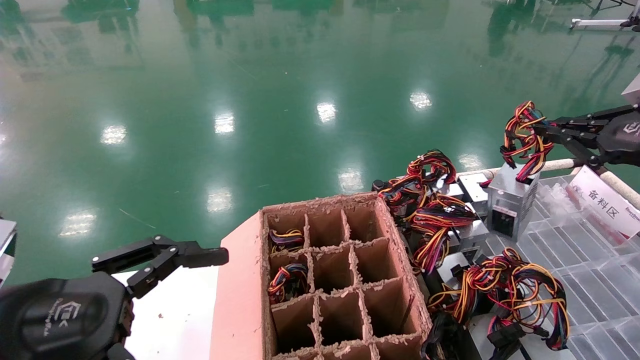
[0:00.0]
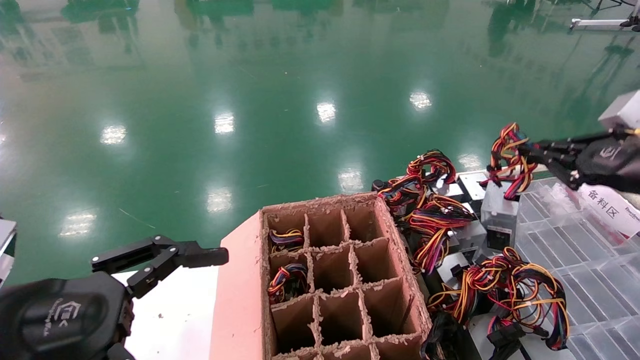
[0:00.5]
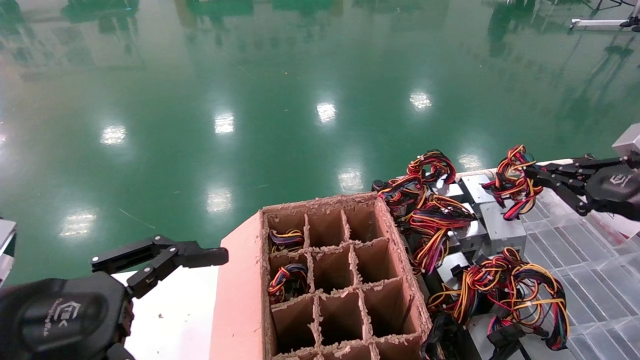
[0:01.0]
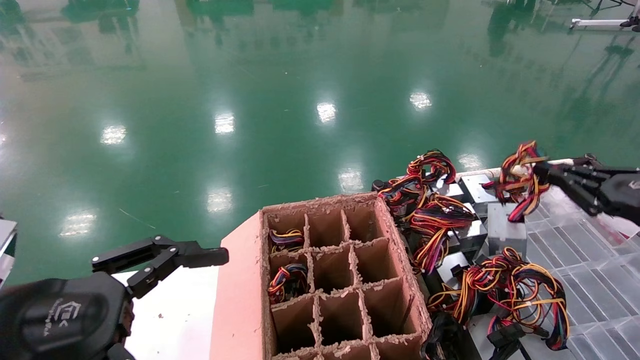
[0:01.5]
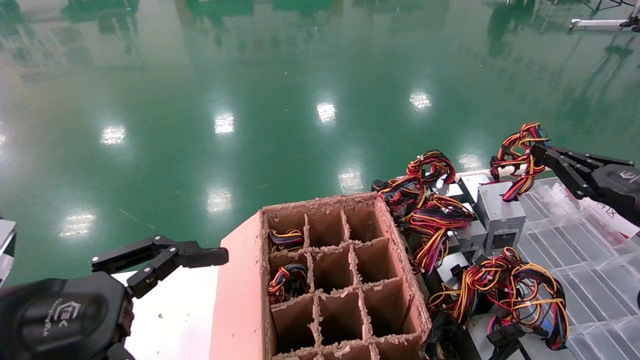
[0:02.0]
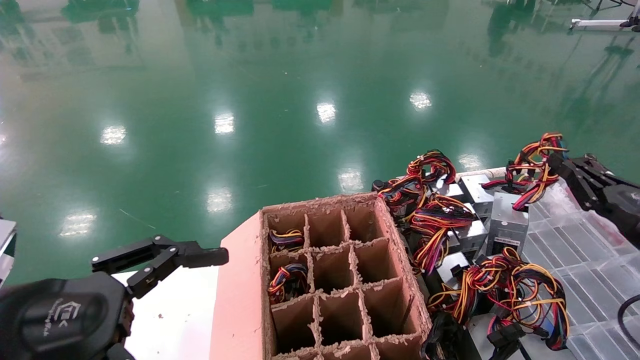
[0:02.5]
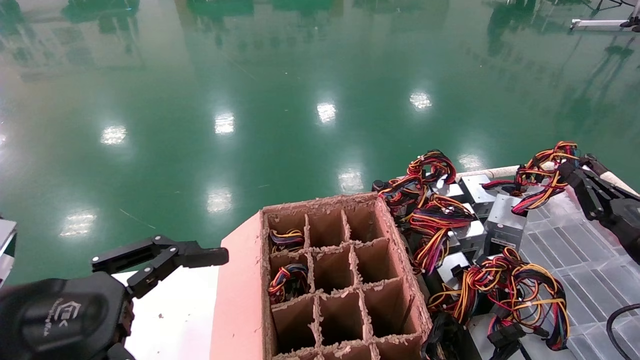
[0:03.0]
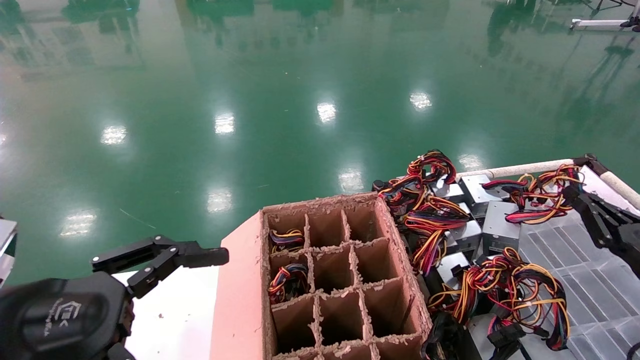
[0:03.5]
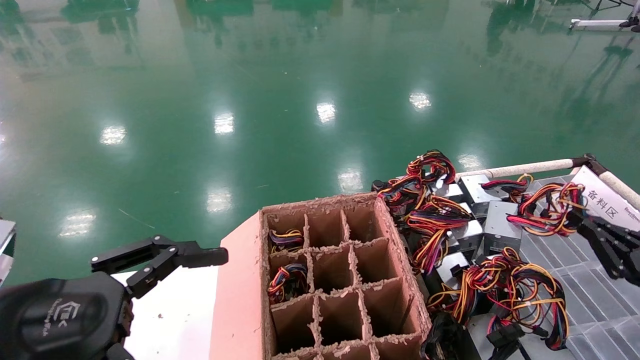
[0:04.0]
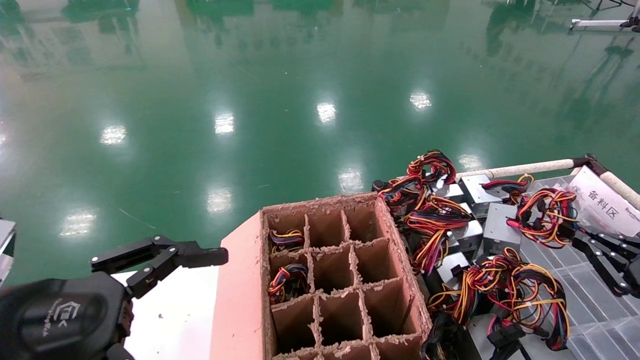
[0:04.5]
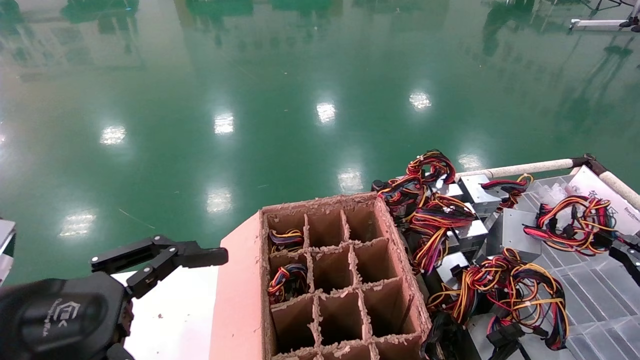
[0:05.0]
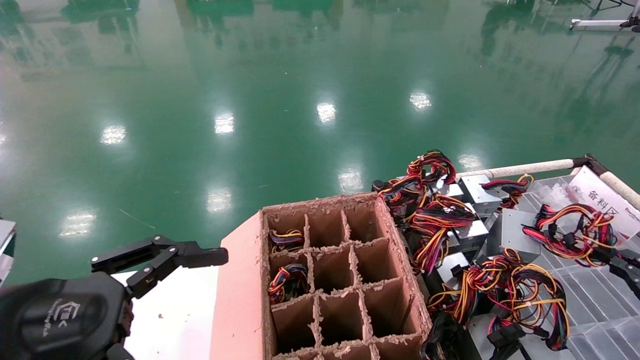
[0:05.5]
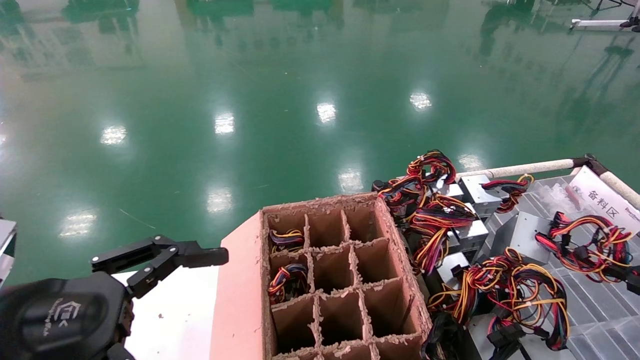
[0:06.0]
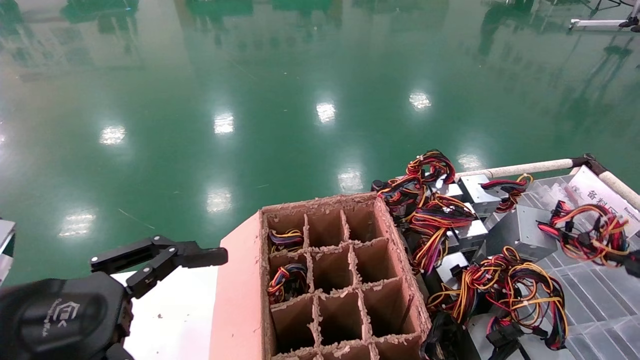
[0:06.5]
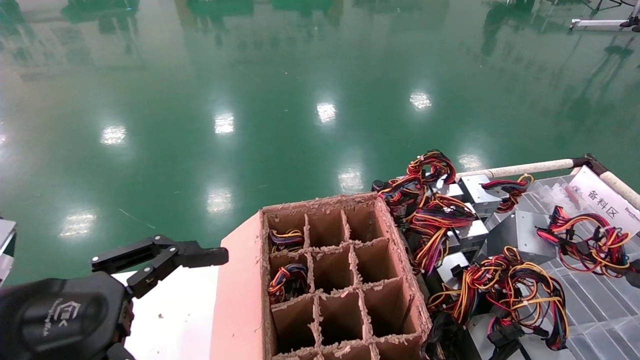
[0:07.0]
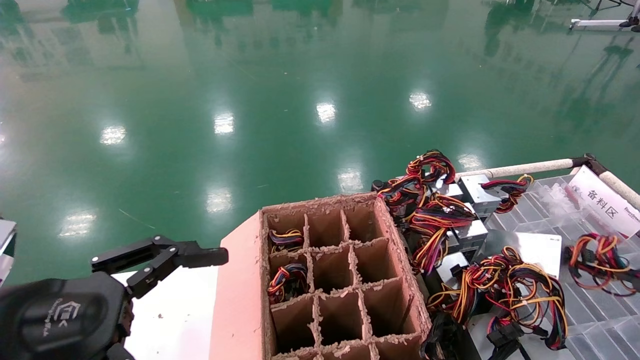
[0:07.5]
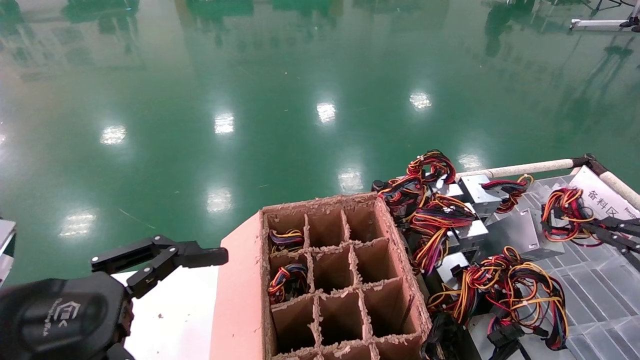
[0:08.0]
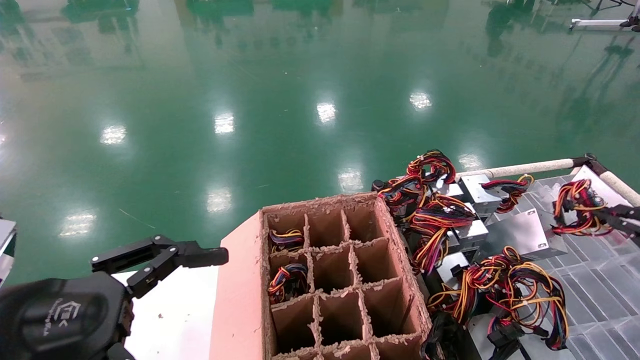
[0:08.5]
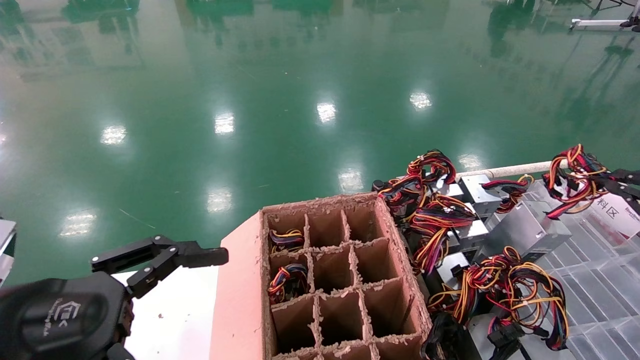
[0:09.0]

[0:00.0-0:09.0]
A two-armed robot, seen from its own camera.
0:00.0 to 0:02.0: The right gripper goes about 10 cm downward.
0:02.0 to 0:04.5: The right gripper is displaced downward and backward by some 10 cm.
0:04.5 to 0:07.0: The right gripper ends up roughly 5 cm from where it was.
0:07.0 to 0:09.0: The right gripper shifts about 10 cm upward and forward.

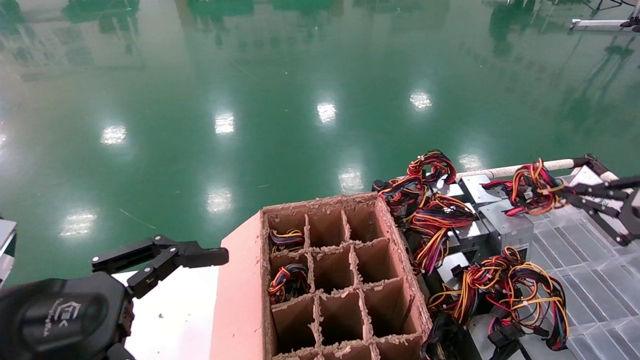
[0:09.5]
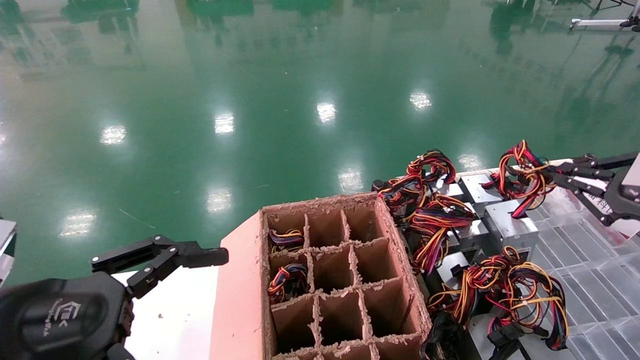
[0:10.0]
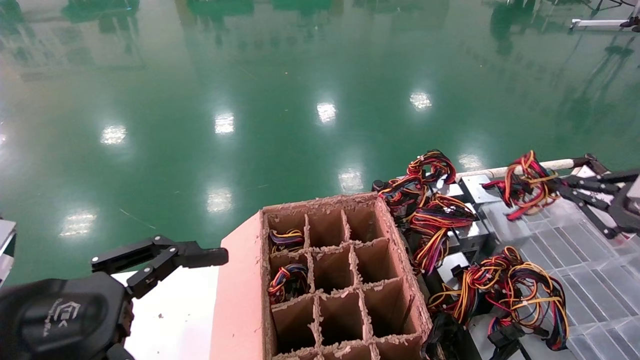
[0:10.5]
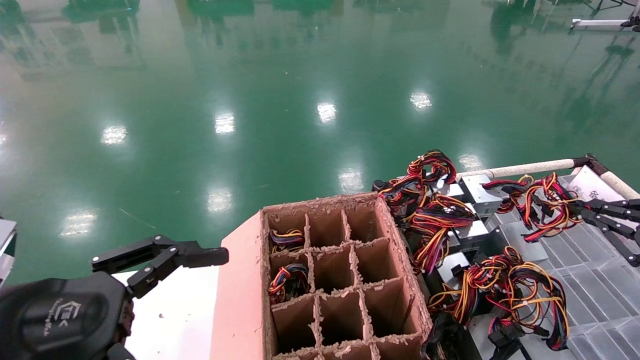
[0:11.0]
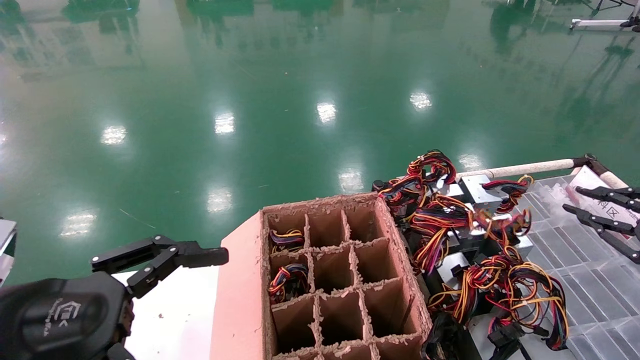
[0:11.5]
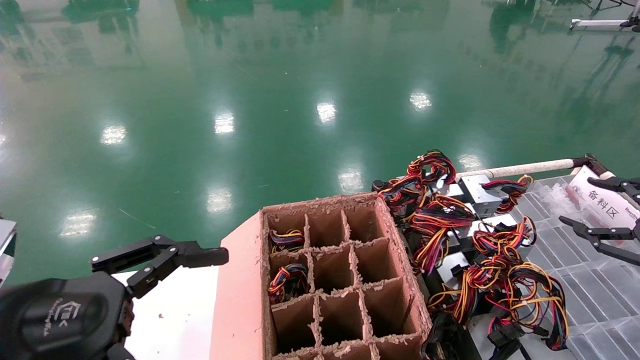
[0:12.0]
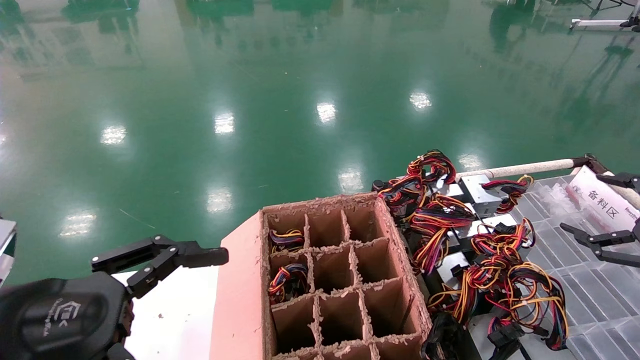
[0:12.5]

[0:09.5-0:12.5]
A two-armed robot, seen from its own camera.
0:09.5 to 0:11.0: The grippers stay close to where they were, moving slightly.
0:11.0 to 0:12.5: The right gripper opens.
